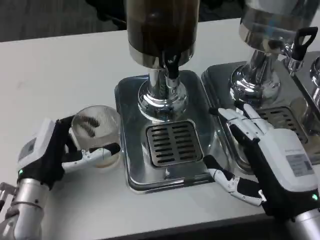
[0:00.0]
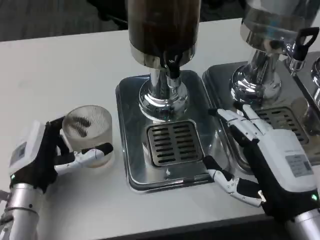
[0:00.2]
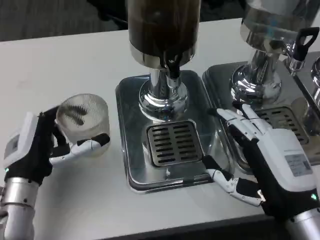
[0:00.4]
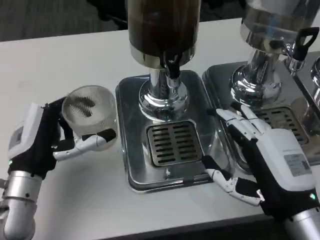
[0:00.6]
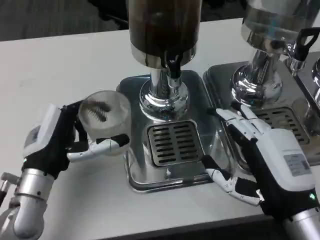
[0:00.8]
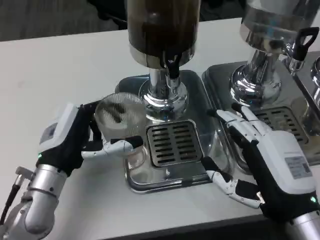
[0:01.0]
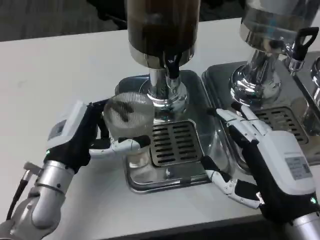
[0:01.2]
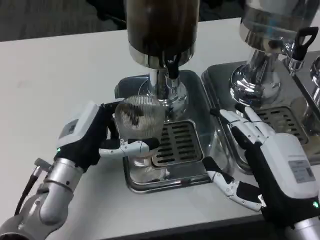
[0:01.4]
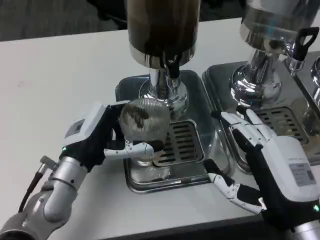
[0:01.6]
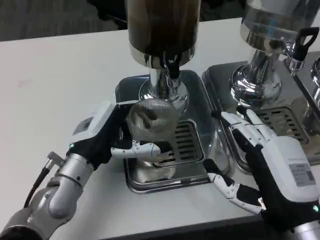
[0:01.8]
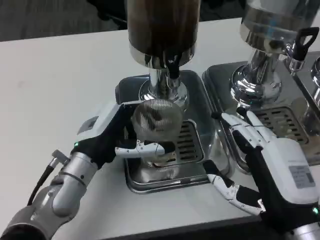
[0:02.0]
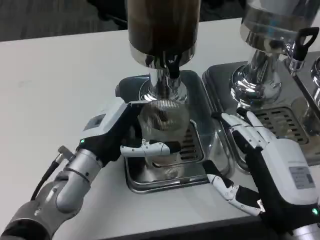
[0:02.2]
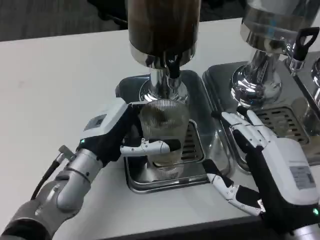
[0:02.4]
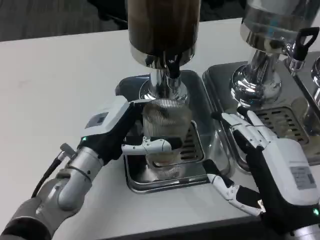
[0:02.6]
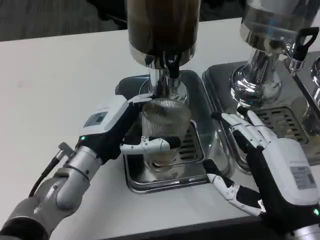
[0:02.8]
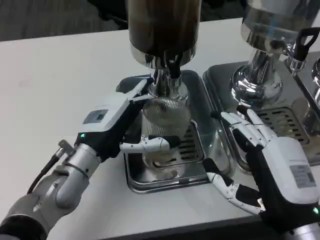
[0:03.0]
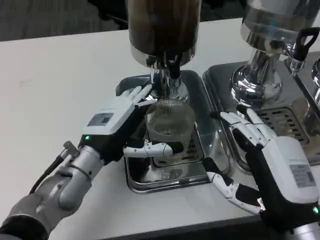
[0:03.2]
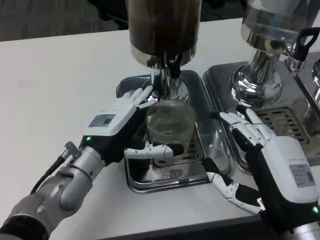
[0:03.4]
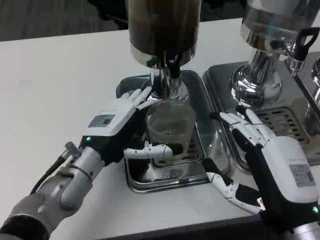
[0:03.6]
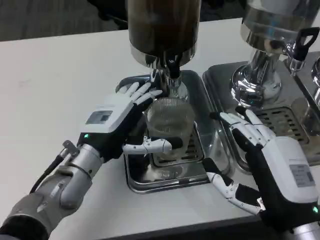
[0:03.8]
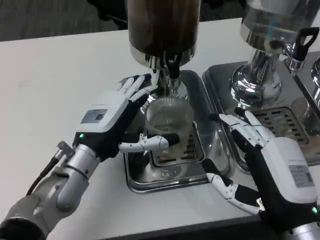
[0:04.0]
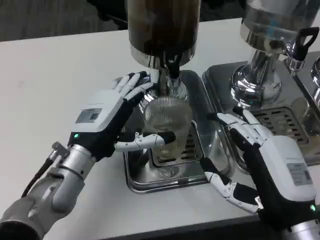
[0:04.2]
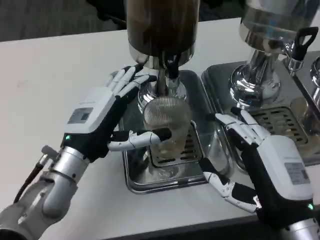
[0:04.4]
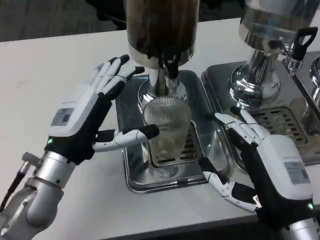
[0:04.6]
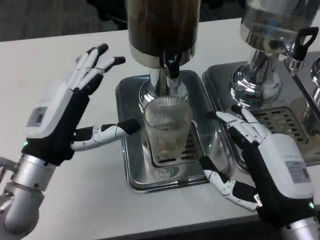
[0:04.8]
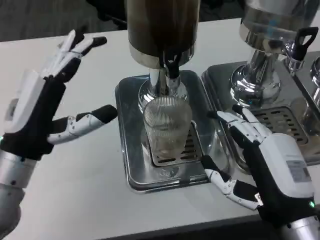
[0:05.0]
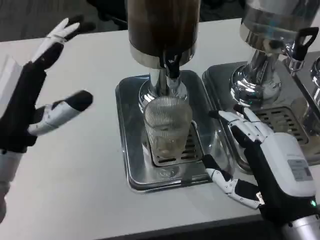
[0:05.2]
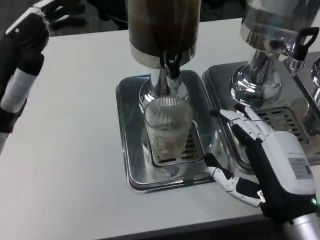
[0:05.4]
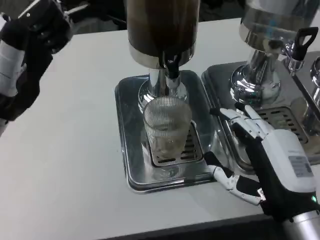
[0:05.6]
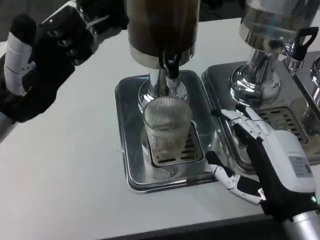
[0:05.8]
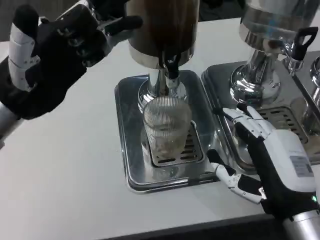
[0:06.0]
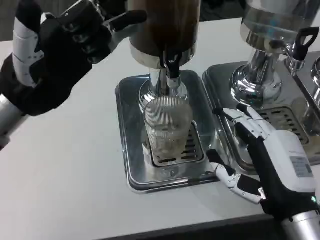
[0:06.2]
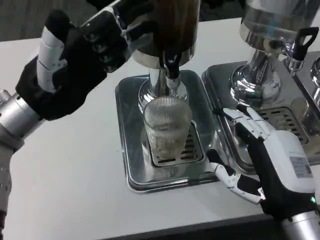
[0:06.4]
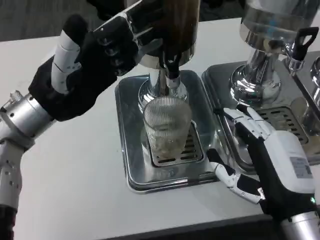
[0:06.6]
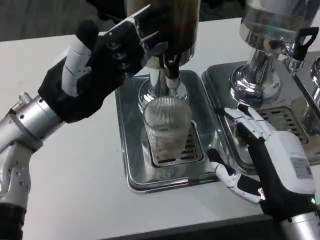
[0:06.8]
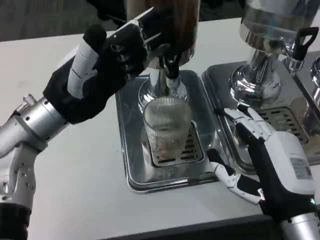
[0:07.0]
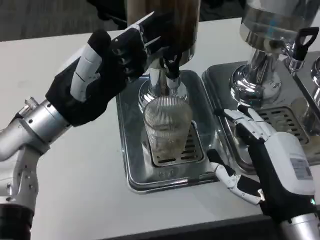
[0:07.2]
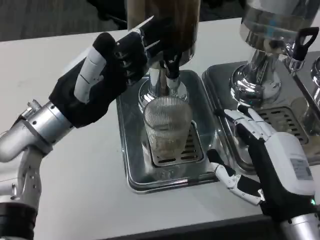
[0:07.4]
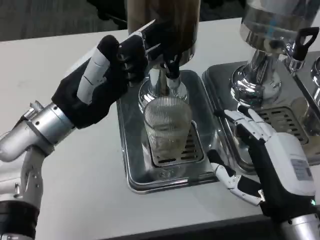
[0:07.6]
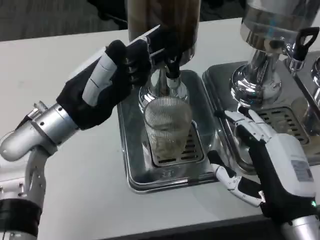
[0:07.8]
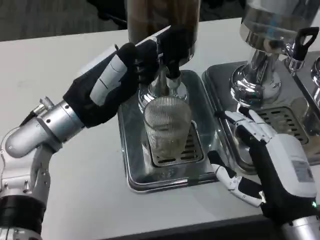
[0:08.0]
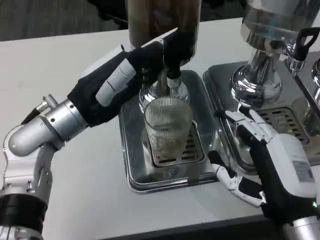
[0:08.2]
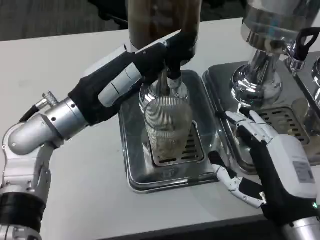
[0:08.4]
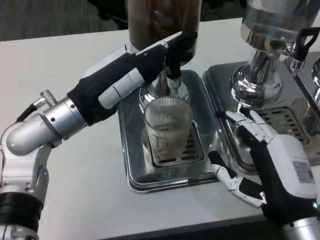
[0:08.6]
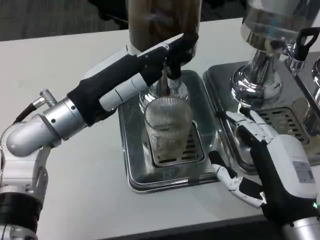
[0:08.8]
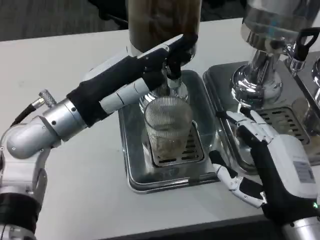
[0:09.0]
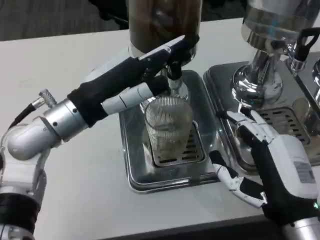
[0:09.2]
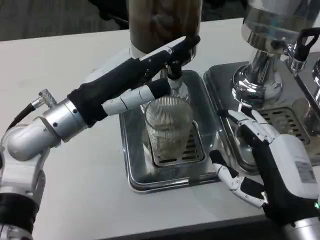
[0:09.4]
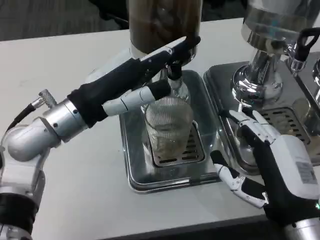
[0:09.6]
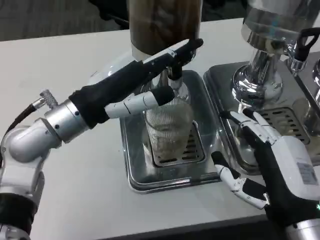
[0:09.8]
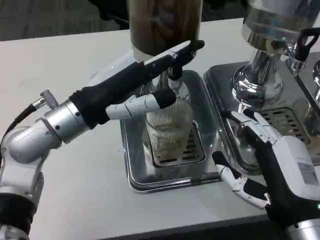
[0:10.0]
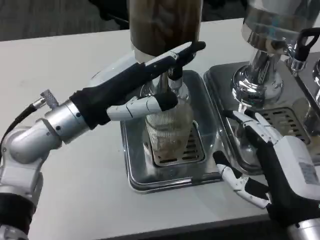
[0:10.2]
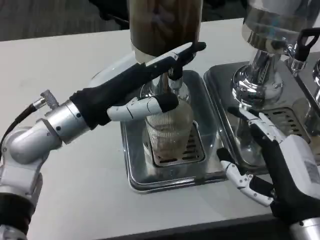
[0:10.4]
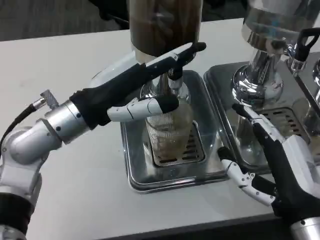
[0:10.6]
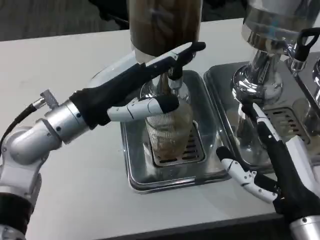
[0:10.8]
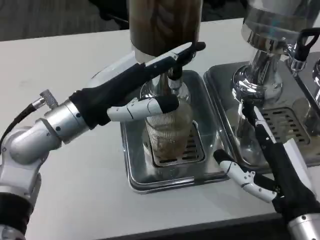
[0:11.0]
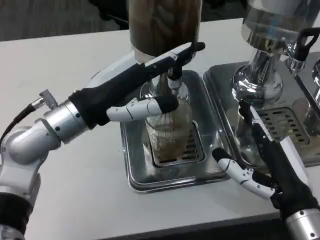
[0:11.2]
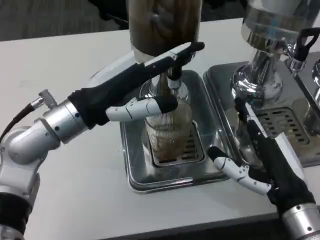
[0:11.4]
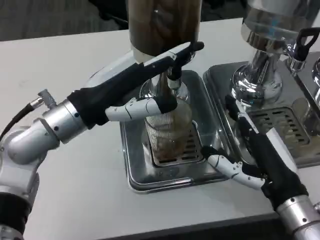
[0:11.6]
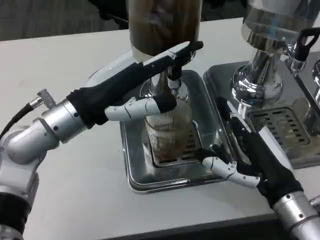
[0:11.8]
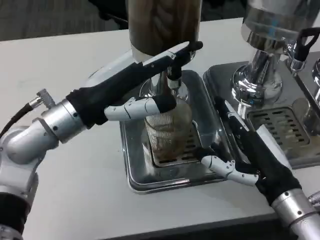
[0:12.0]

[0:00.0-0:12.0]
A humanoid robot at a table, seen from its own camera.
Task of the whole recording: Grasp the cup under the faucet to collect the drink, then remove the cup.
0:00.0 to 0:01.6: The left hand moves about 5 cm.
0:01.6 to 0:03.0: The hands move only a little.
0:04.4 to 0:06.0: The left hand goes about 15 cm upward and to the left.
0:06.0 to 0:07.6: The left hand ends up approximately 5 cm from where it was.
0:10.4 to 0:12.0: The right hand heads forward, covering about 5 cm.

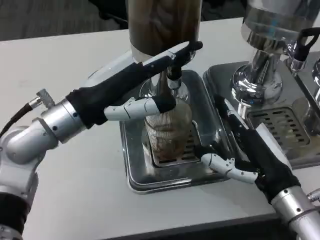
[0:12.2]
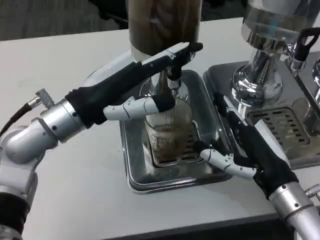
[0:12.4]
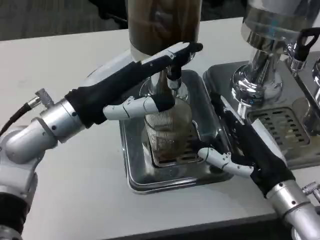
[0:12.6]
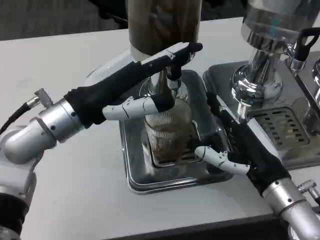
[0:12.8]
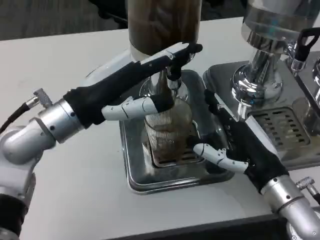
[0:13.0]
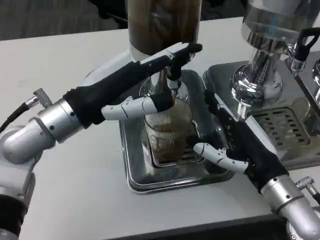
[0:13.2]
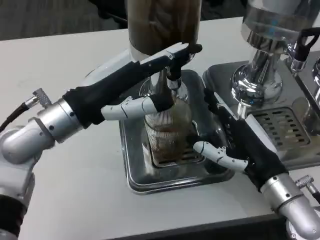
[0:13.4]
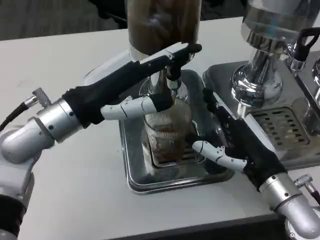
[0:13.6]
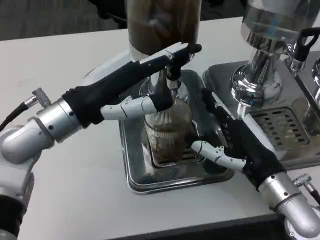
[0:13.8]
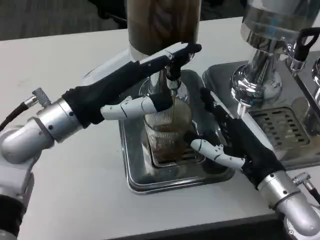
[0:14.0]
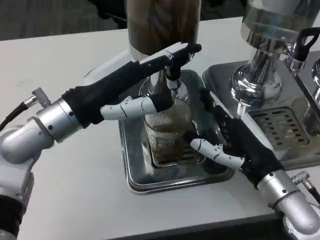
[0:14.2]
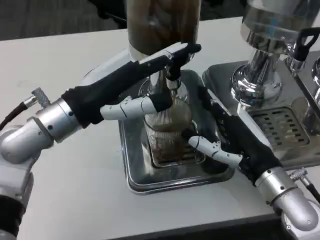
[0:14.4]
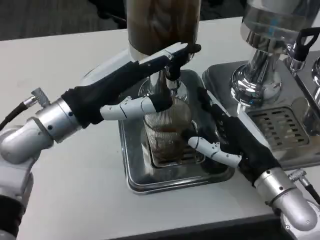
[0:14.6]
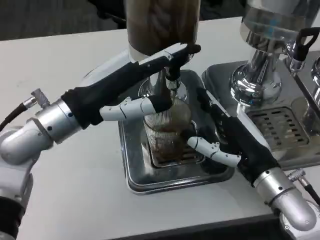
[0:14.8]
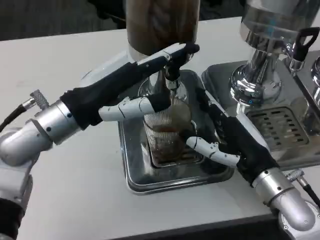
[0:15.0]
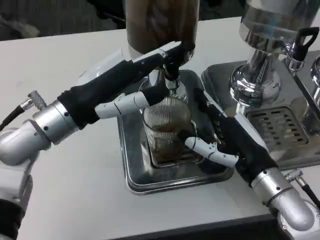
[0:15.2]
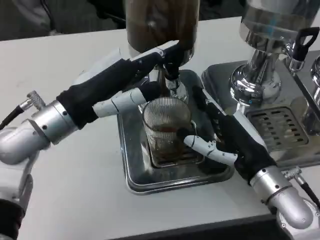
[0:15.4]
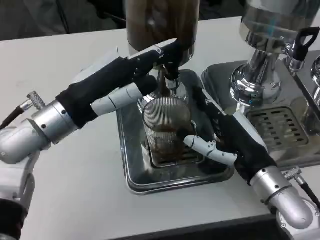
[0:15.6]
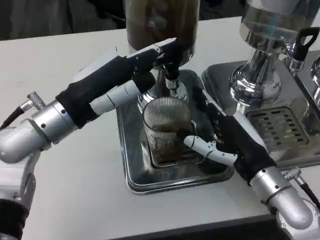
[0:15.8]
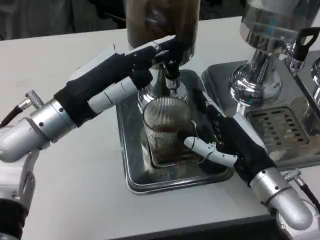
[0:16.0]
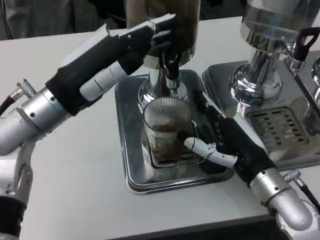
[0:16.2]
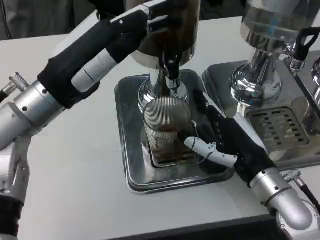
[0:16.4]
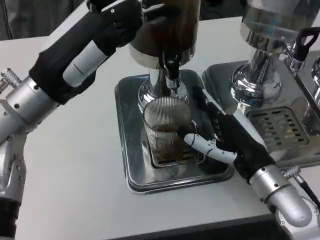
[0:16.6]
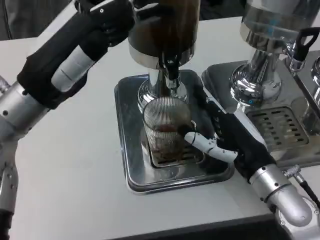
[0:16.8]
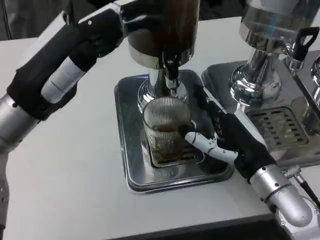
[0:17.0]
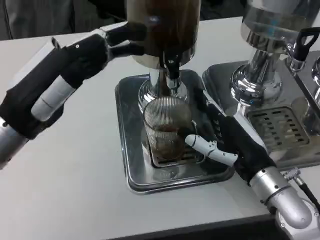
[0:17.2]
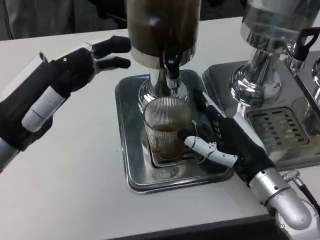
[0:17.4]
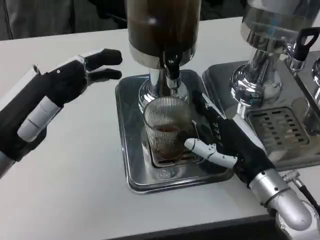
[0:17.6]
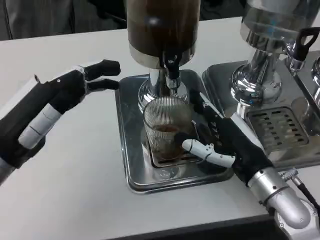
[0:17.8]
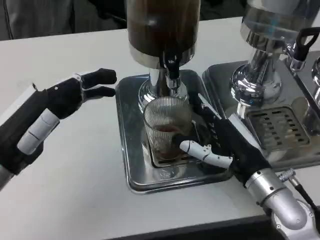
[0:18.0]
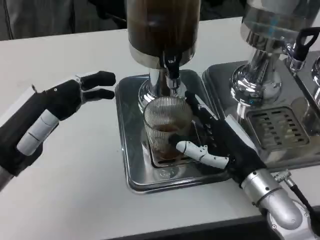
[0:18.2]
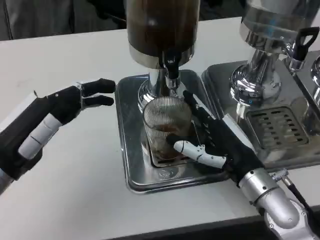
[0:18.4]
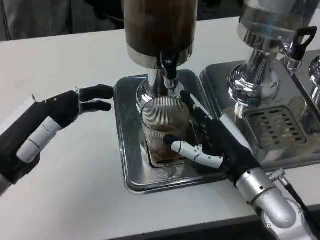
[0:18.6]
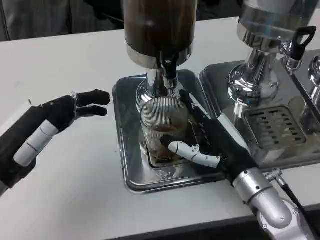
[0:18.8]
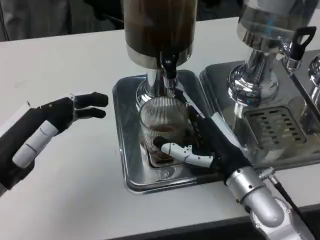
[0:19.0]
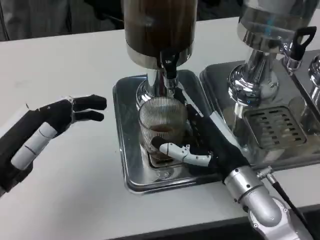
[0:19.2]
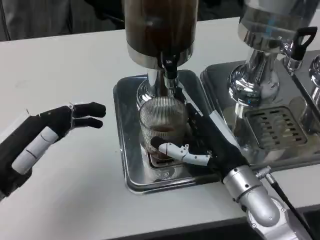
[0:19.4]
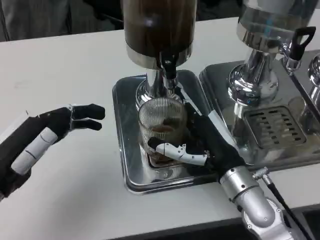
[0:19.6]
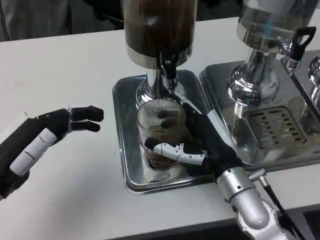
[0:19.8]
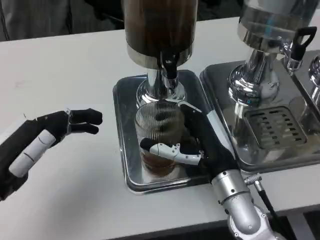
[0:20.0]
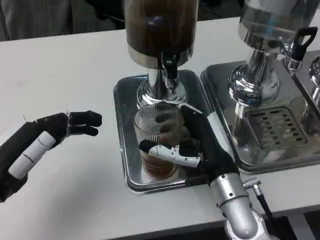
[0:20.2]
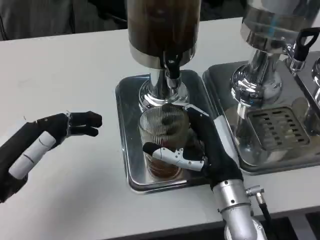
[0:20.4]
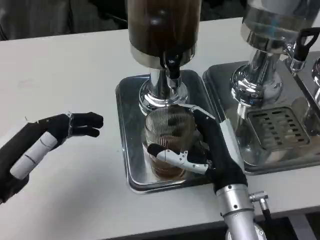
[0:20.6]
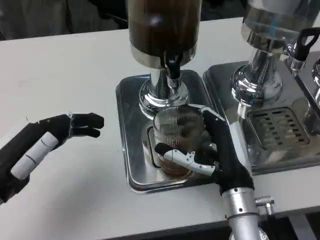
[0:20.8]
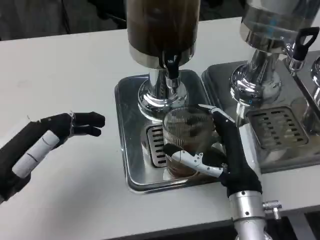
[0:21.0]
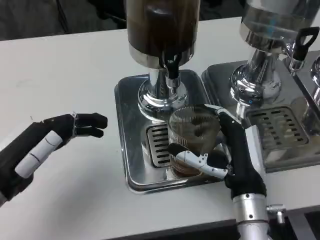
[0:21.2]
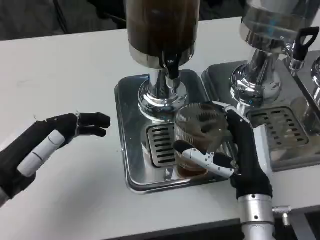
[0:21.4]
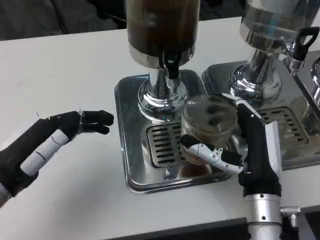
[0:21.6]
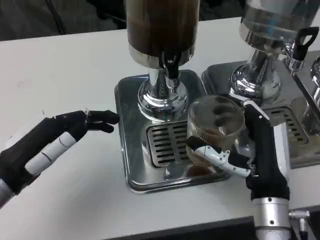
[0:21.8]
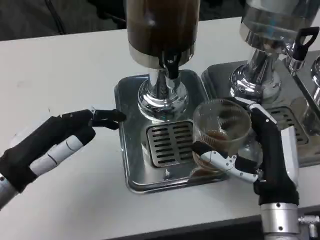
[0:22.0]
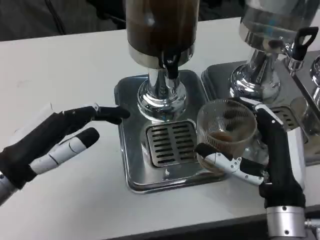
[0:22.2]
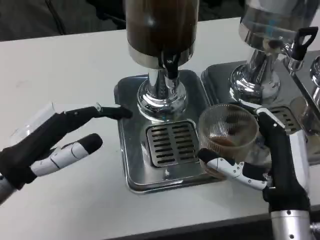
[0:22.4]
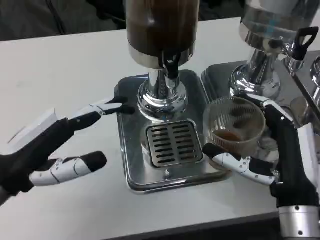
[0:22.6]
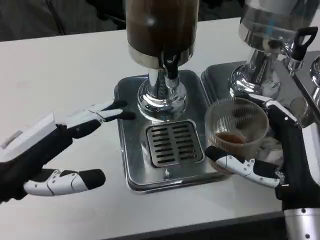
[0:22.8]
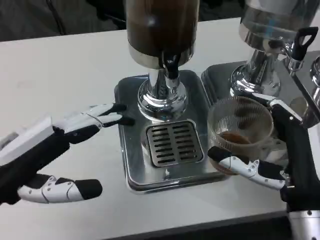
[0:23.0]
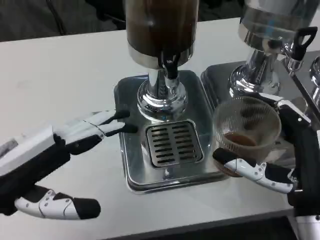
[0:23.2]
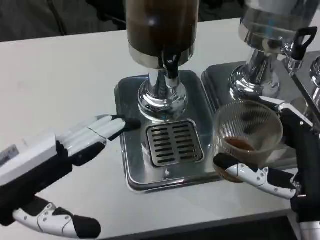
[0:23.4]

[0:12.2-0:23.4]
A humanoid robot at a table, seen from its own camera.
Task of the whole recording: Grasp the cup under the faucet to collect the drink, then remove the cup.
0:12.2 to 0:15.4: The hands move only a little.
0:17.0 to 0:18.6: The left hand heads downward, covering roughly 5 cm.
0:18.6 to 0:20.2: The right hand heads to the left, covering roughly 5 cm.
0:20.2 to 0:21.8: The right hand ends up some 5 cm from where it was.
0:21.8 to 0:23.4: The left hand shifts about 5 cm upward; the right hand is displaced backward by about 5 cm.
